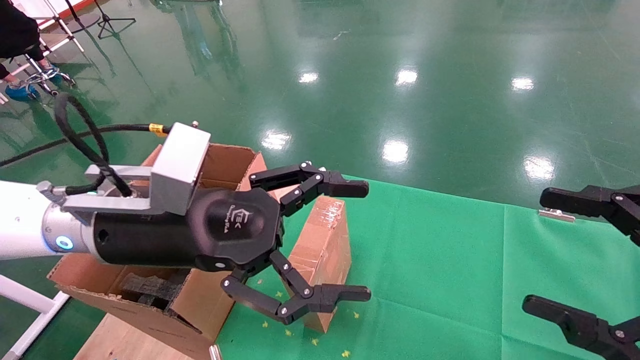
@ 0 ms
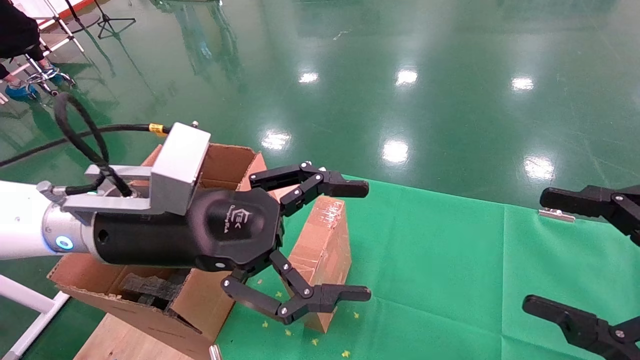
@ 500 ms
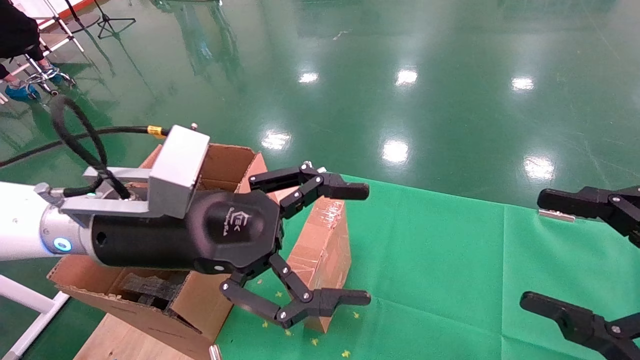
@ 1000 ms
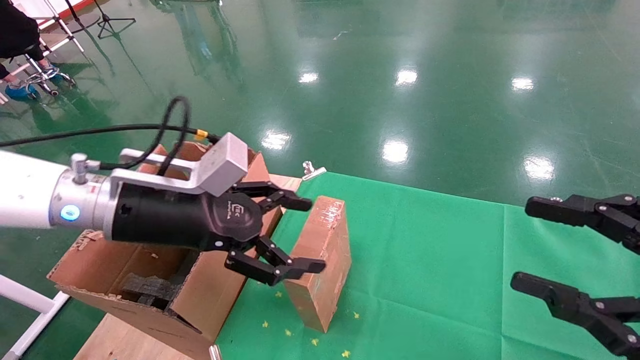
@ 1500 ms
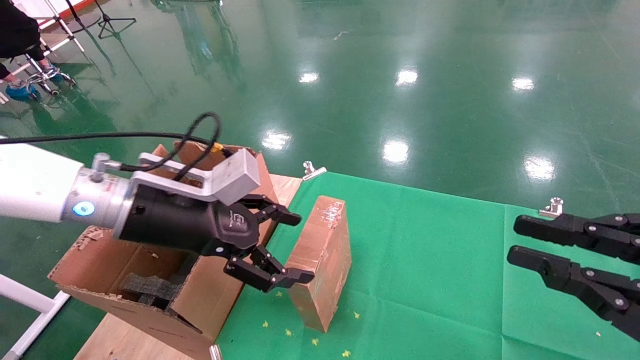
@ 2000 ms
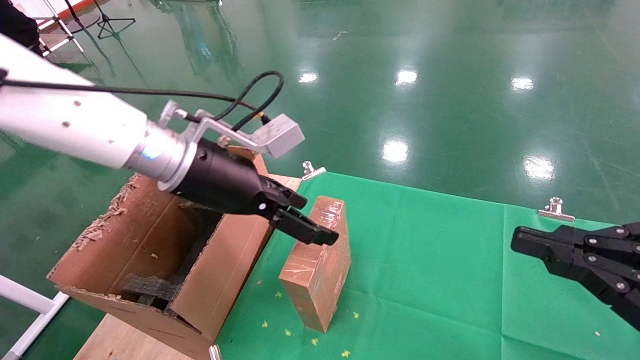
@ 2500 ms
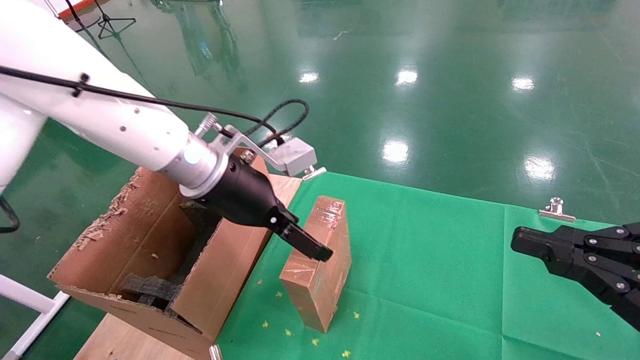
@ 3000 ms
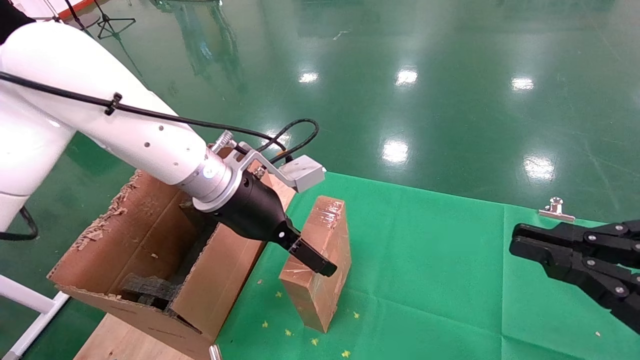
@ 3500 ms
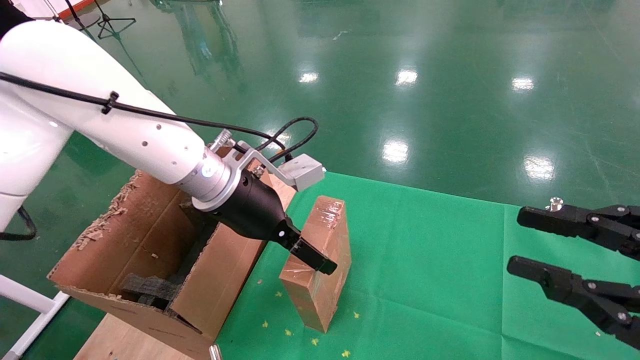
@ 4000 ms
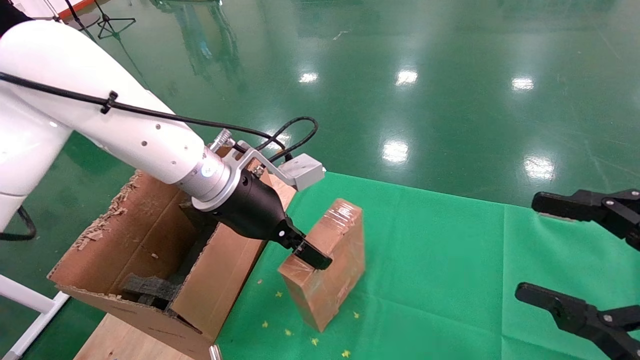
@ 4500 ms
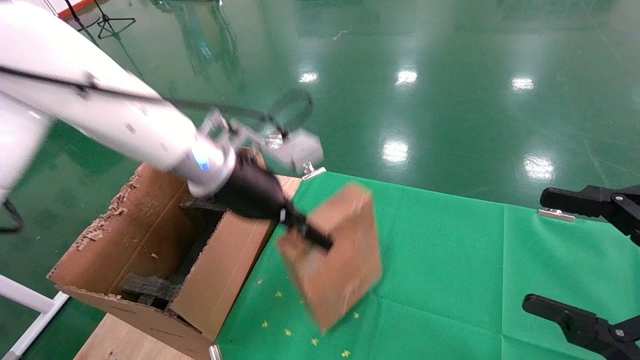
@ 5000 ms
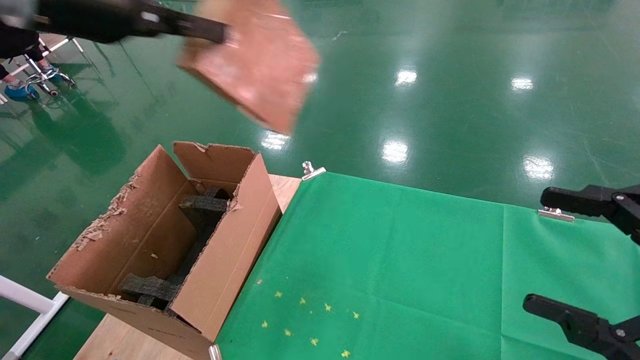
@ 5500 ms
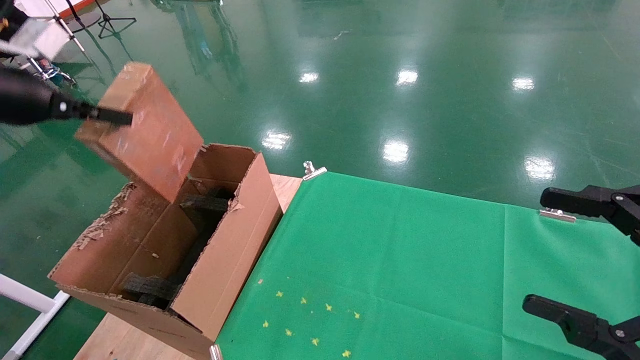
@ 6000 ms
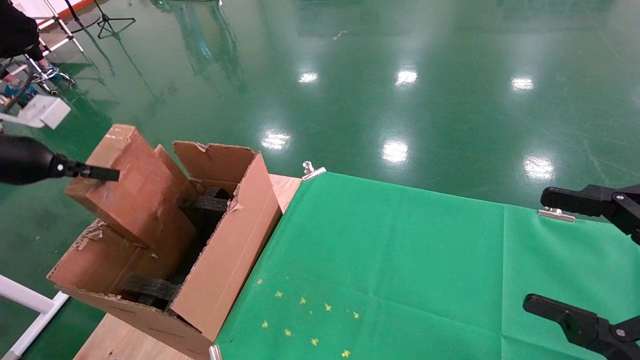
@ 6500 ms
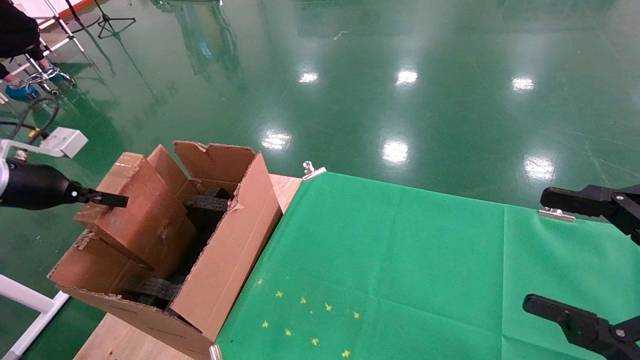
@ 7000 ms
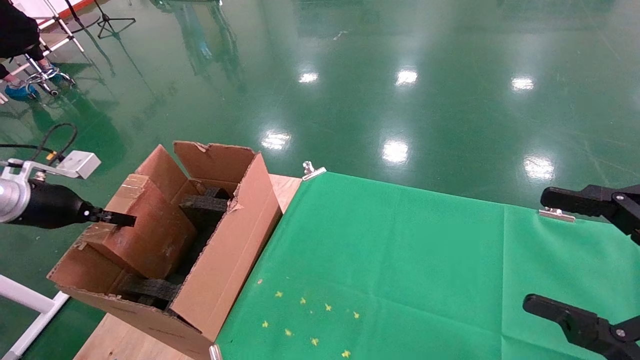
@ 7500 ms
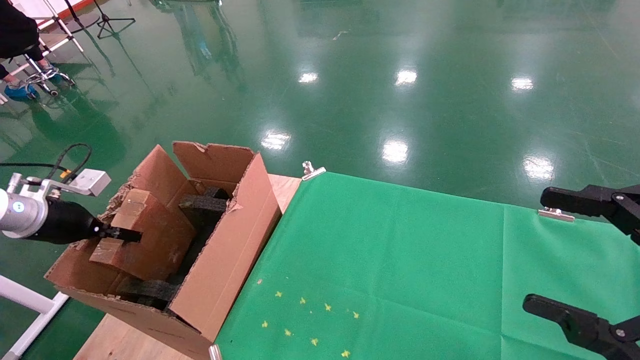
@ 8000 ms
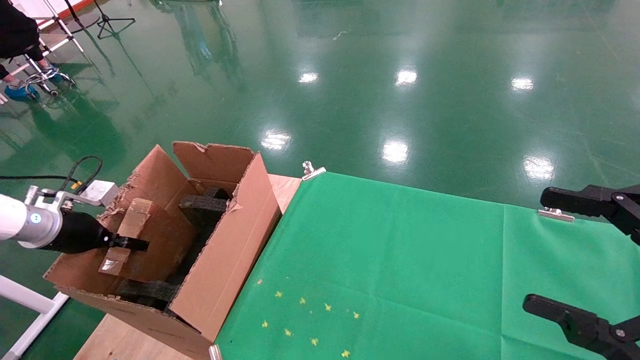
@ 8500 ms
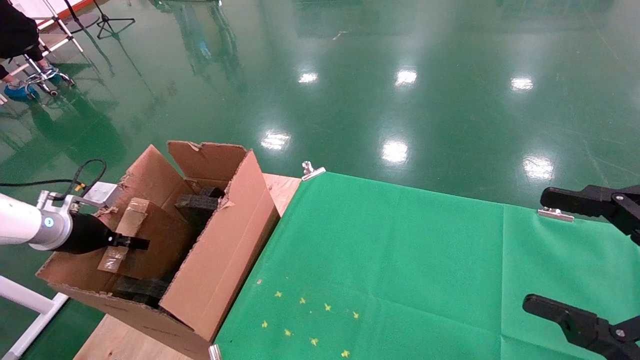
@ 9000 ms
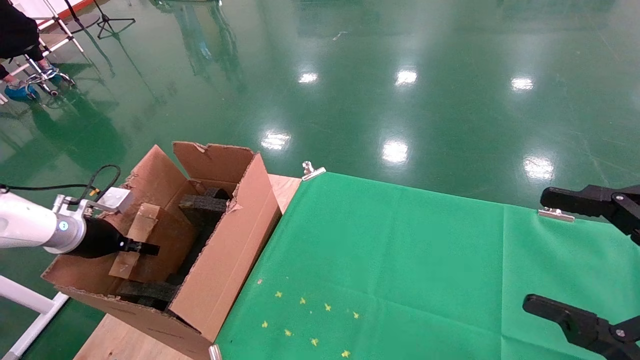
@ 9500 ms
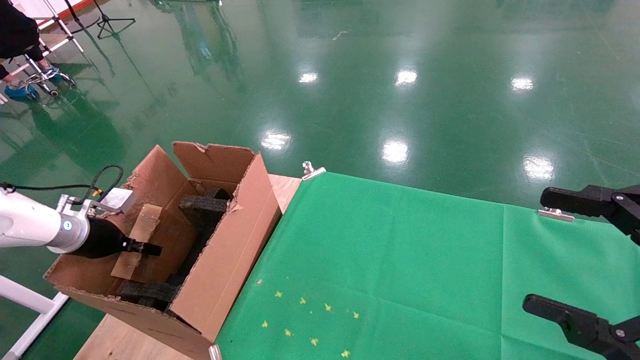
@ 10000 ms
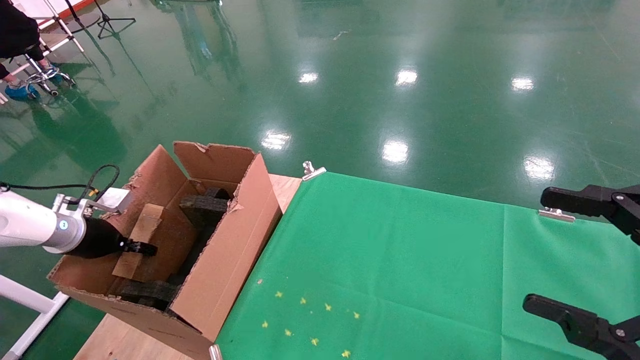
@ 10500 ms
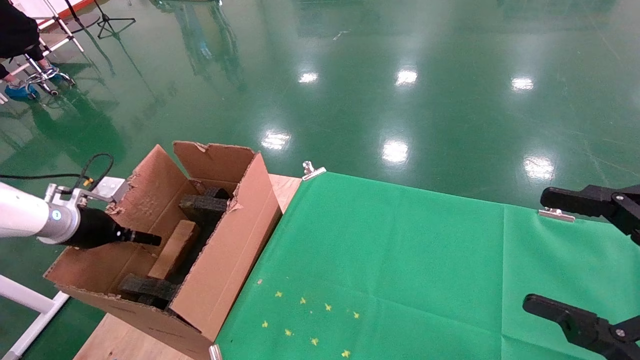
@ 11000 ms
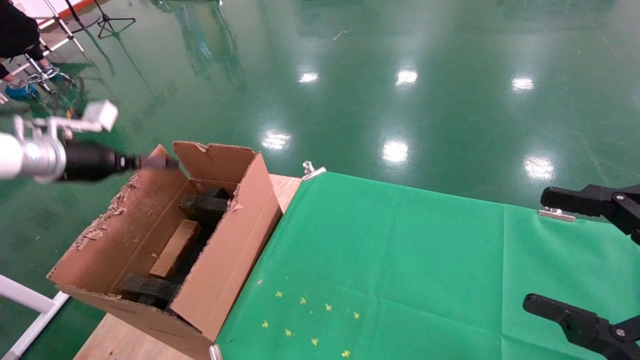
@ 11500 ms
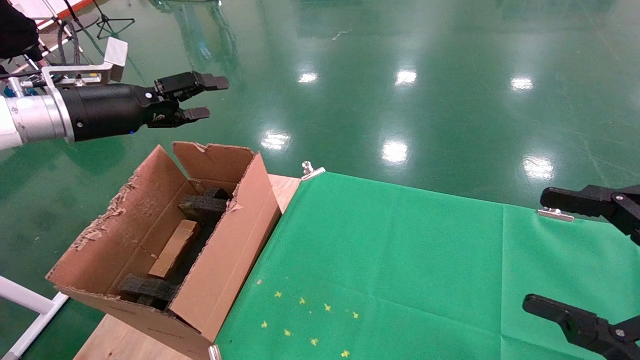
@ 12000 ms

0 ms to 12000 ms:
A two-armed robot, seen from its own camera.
Task of the whole recording: using a robotic arm to pick up a cardboard box and palace it the carton.
Step, 1500 ms to 4500 ms: Pick up the mouse and the power cord paper box.
Step, 5000 ms to 11500 ms: Place the mouse and the power cord paper box into the container.
0 ms to 2000 ms: The right gripper closes up, while the left gripper is displaced forward by some 5 cm.
2000 ms to 4000 ms: The left gripper goes roughly 10 cm forward and to the right.
4000 ms to 6000 ms: The right gripper opens up, while the left gripper shifts about 30 cm to the left and upward, and closes.
6000 ms to 8000 ms: The left gripper goes about 20 cm downward.
8000 ms to 10000 ms: The left gripper moves downward, approximately 5 cm.
10000 ms to 12000 ms: The left gripper travels upward and to the right by roughly 20 cm, and opens its fingers.

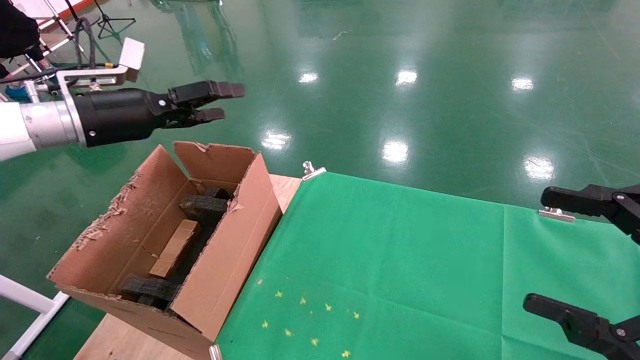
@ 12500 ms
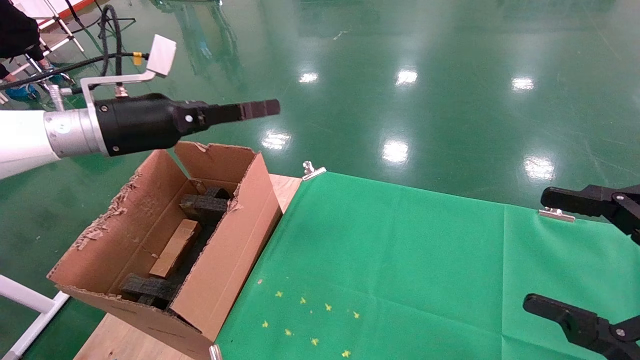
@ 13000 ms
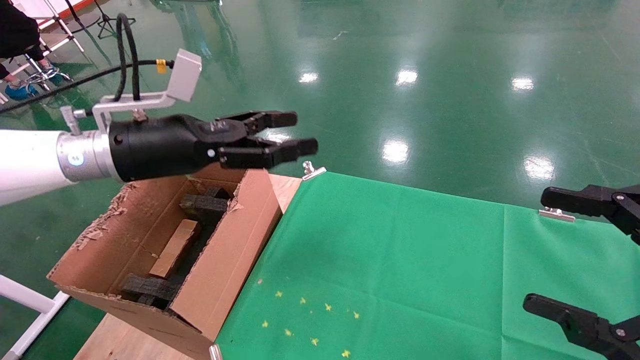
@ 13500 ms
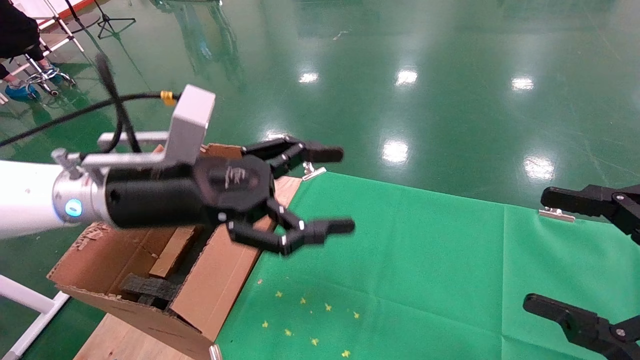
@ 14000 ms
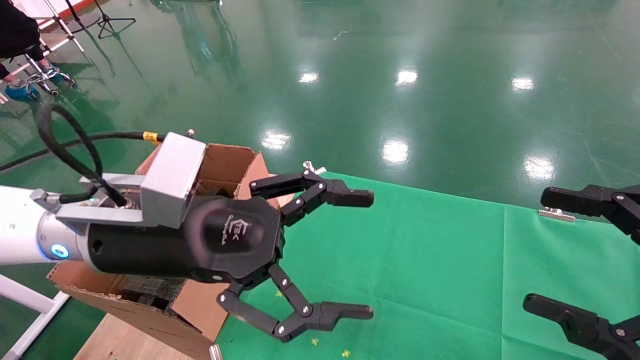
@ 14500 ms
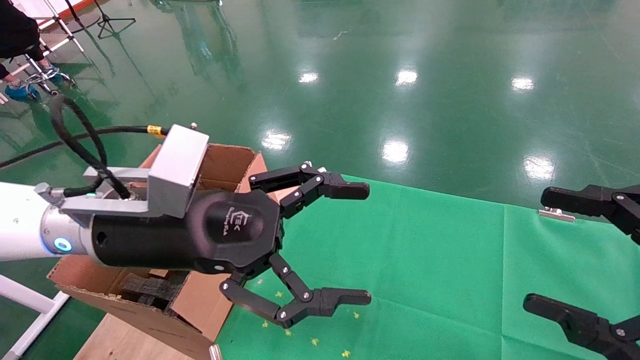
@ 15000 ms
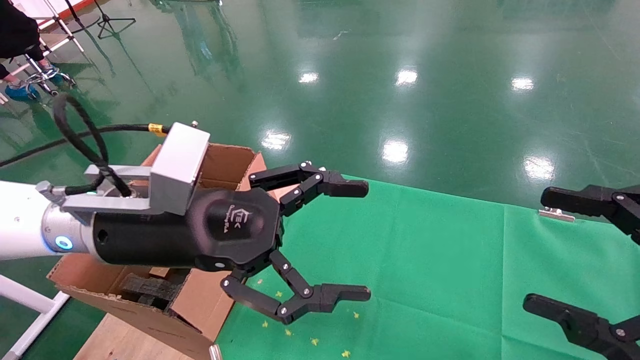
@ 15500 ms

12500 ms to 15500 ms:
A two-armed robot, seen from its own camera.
Task of the whole recording: using a robotic arm to pick up a cardboard box and palace it the carton.
12500 ms to 14000 ms: The left gripper shifts some 20 cm to the right and backward.
14000 ms to 15500 ms: There are only small adjustments of the grippers.
